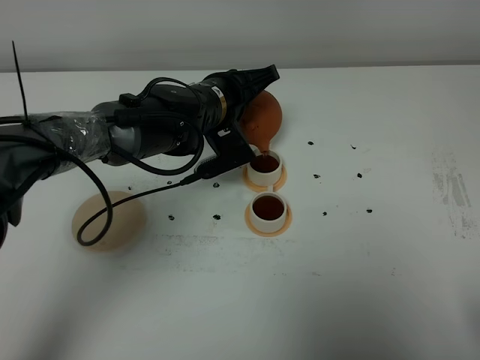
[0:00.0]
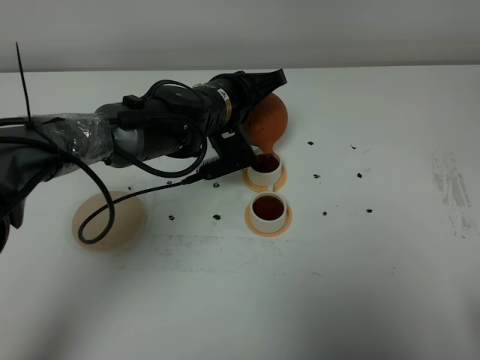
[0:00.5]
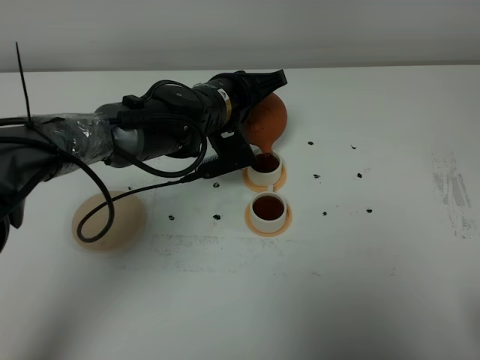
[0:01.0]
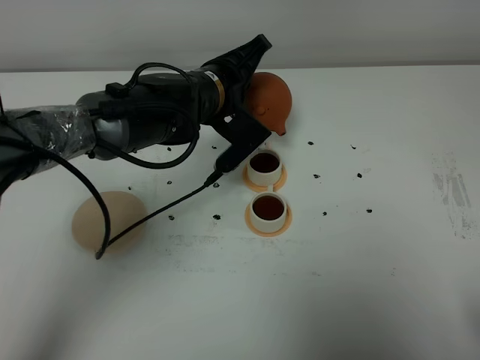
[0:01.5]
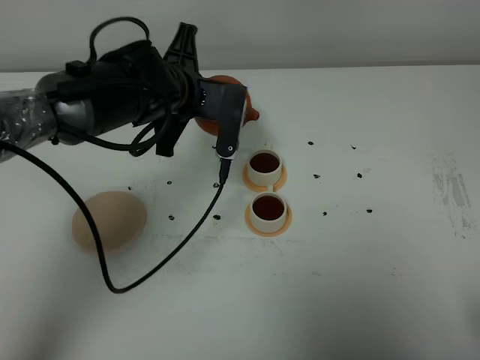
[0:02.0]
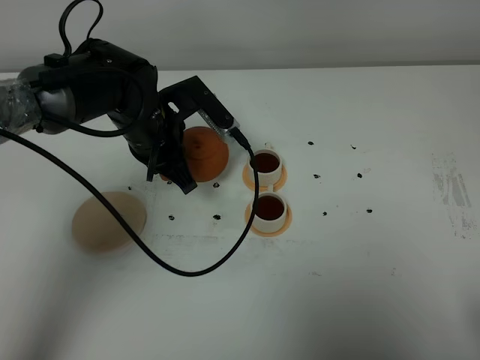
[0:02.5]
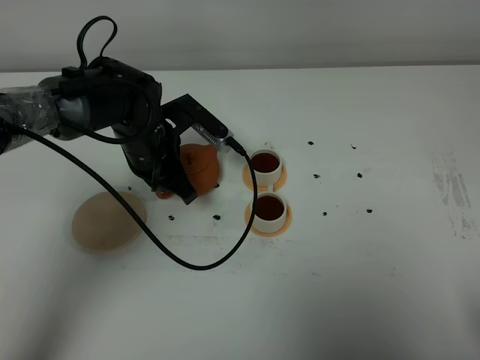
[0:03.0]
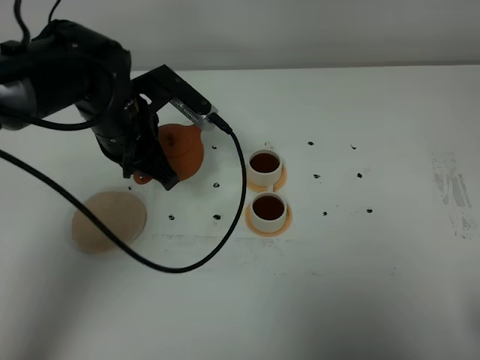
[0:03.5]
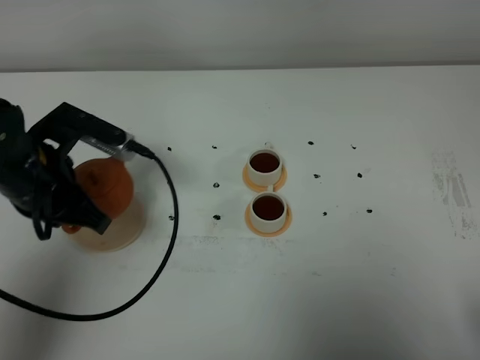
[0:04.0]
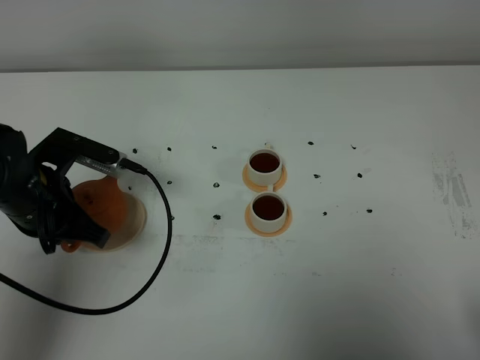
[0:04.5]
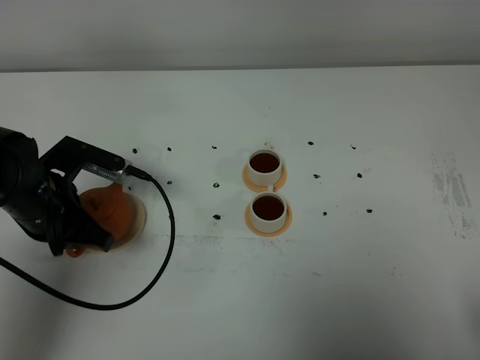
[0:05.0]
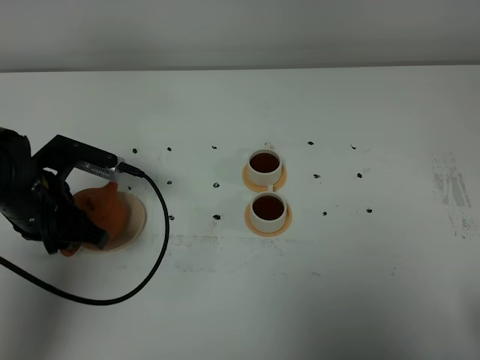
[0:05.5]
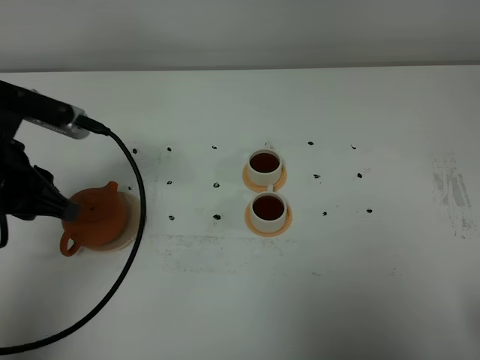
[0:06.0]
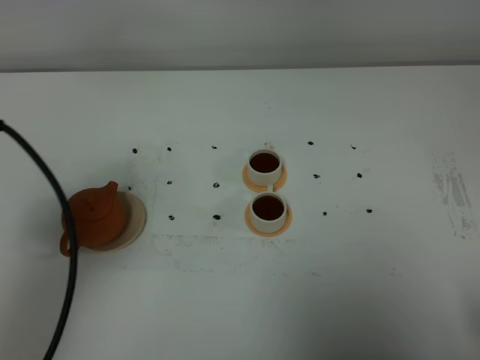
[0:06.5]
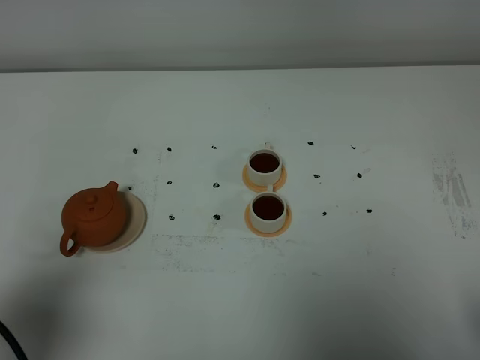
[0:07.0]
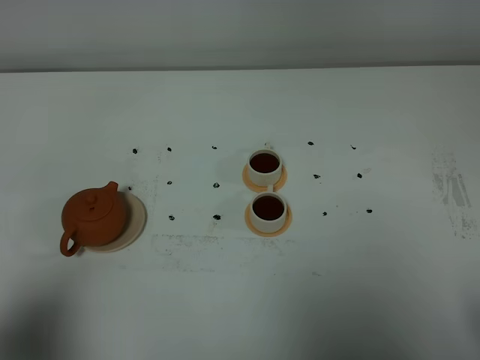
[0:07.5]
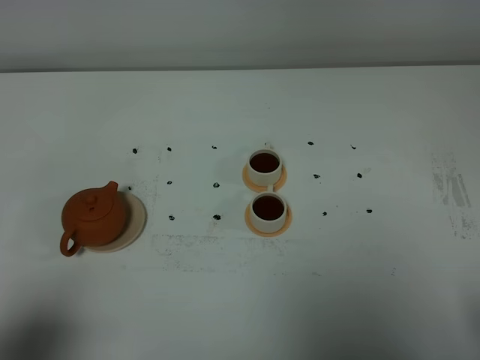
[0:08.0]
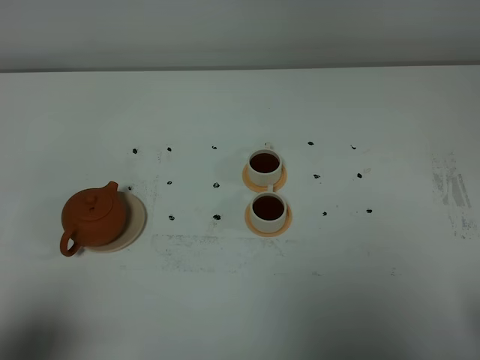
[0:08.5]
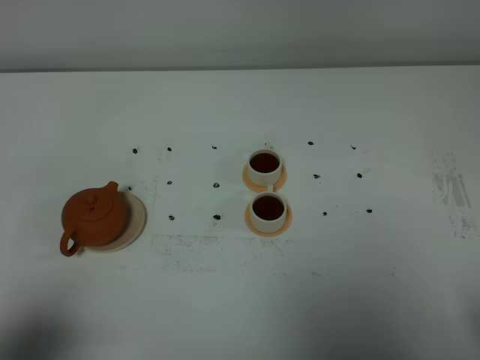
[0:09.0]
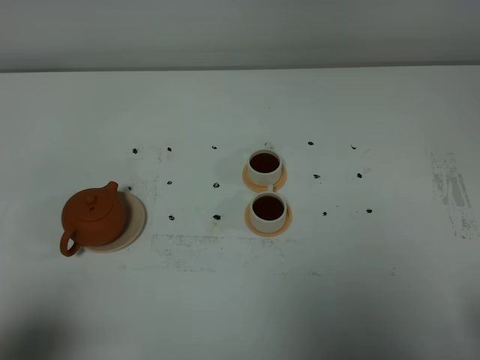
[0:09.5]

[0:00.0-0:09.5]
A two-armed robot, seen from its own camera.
Task of the whole recording: grasp the brown teapot and pour the tea into the two white teacups one by one, put the brown teapot back in its original place.
0:00.0 to 0:02.0: The left gripper ends up about 5 cm from where it was.
0:02.0 to 0:04.0: The left gripper shifts approximately 20 cm to the left and backward.
0:04.0 to 0:05.5: The left gripper is displaced downward by some 5 cm, and opens its fingers.
0:05.5 to 0:07.5: The left gripper moves backward and upward, approximately 30 cm.
